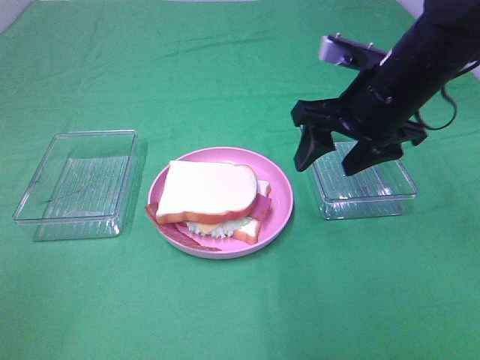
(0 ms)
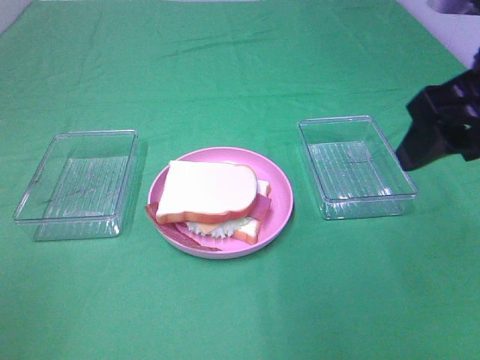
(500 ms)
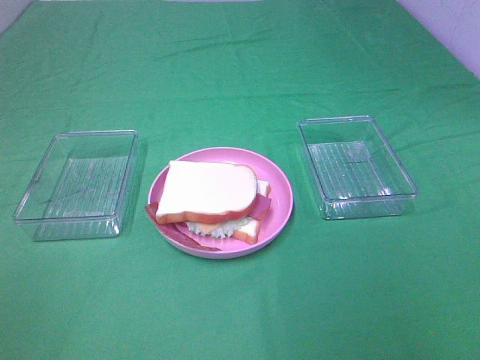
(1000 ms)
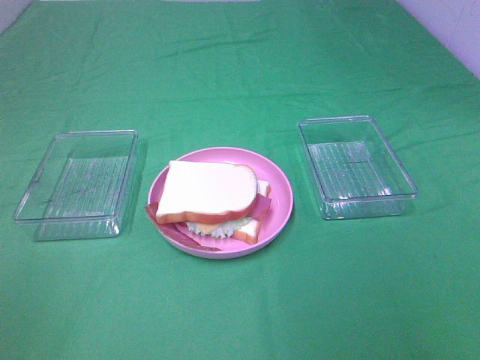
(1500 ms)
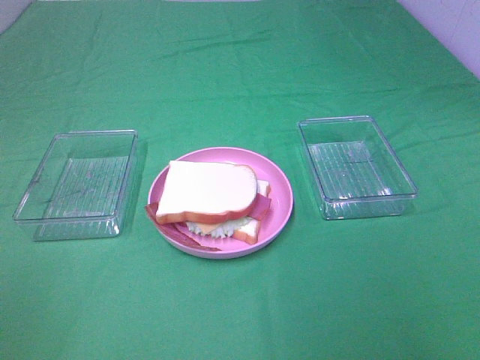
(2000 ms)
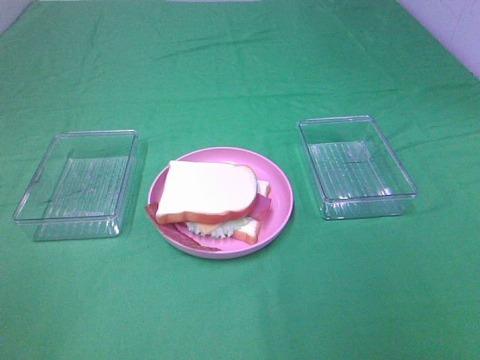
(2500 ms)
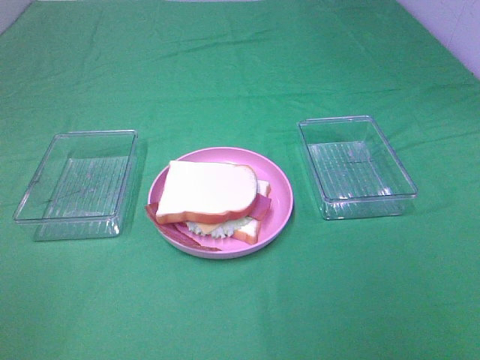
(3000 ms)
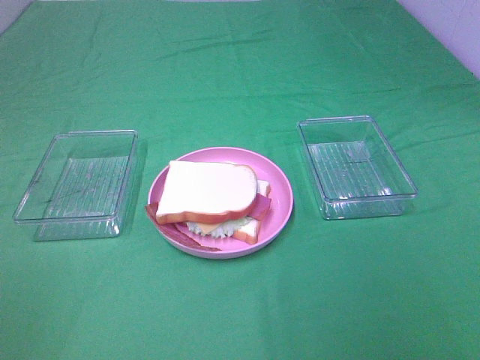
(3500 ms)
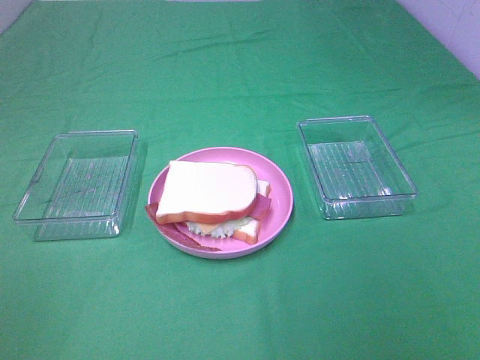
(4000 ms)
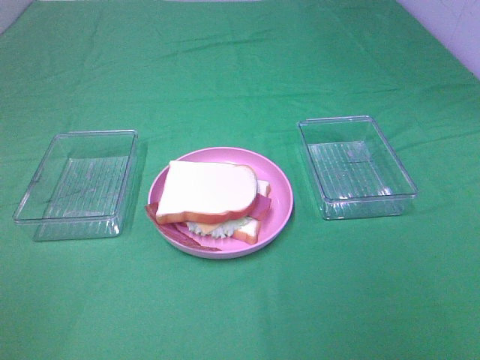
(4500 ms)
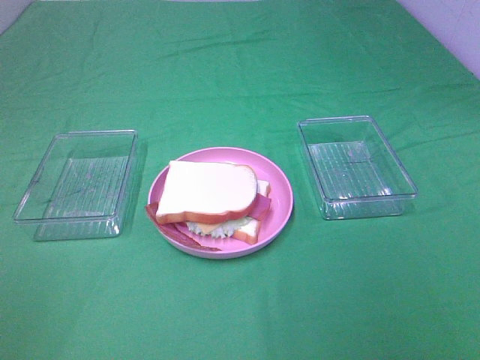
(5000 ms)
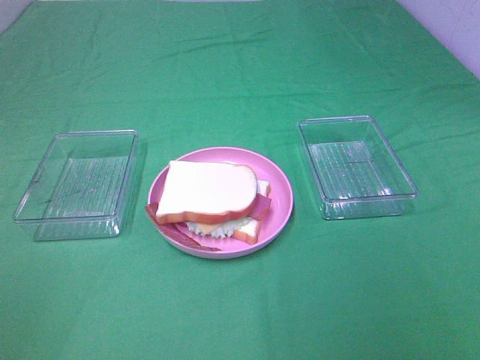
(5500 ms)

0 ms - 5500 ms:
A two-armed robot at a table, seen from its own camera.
Task of the whole recording: Make sandwiches.
0 ms - 2000 ms: The right gripper travels backward and to the right by approximately 35 cm.
3500 ms - 5500 ms: Both grippers stay about where they are.

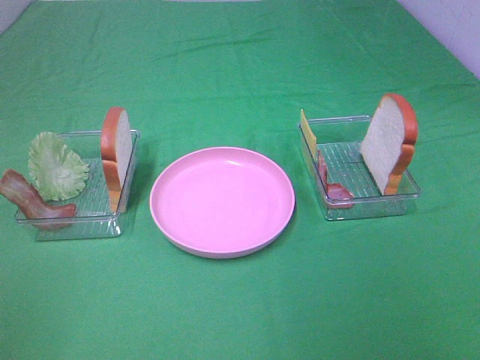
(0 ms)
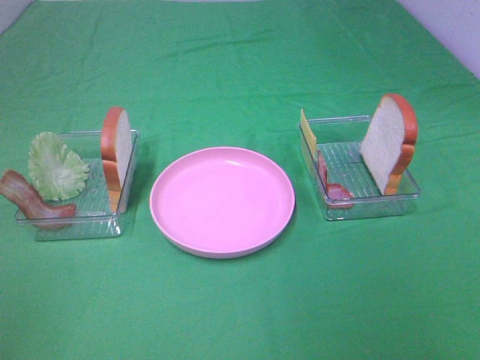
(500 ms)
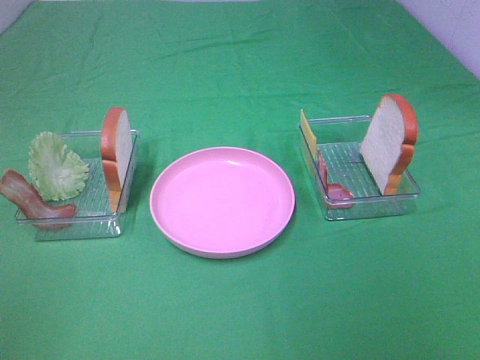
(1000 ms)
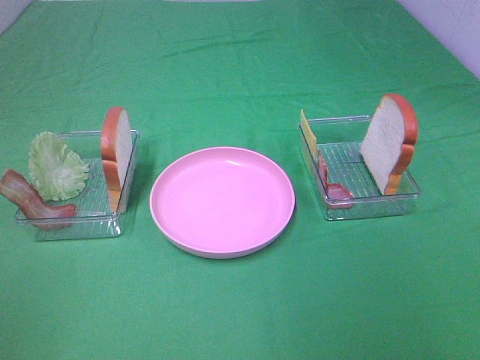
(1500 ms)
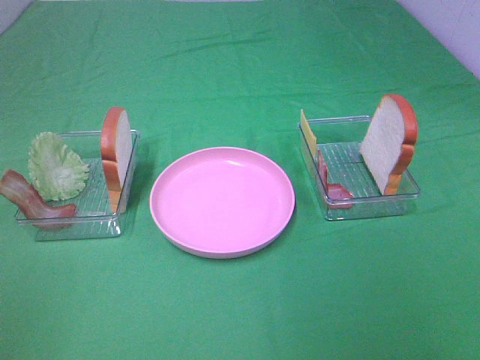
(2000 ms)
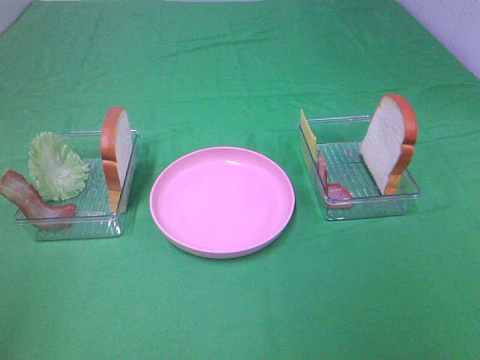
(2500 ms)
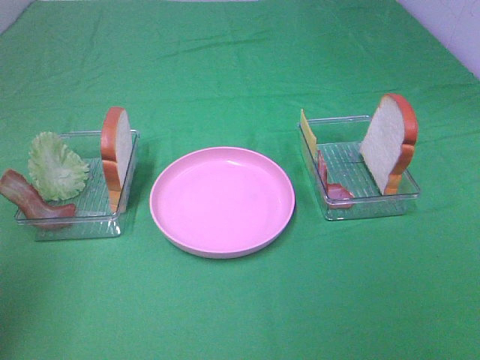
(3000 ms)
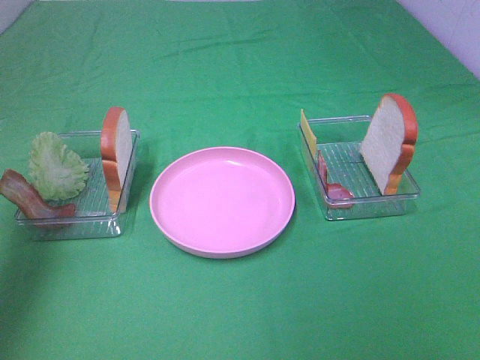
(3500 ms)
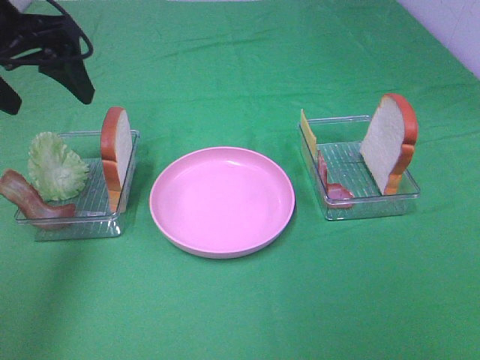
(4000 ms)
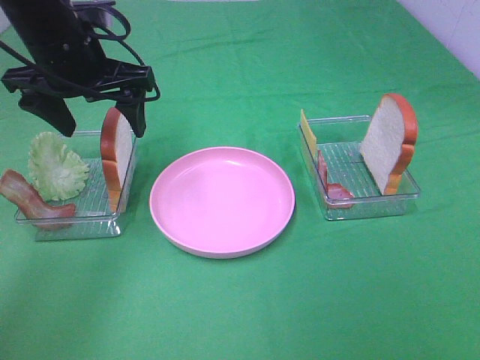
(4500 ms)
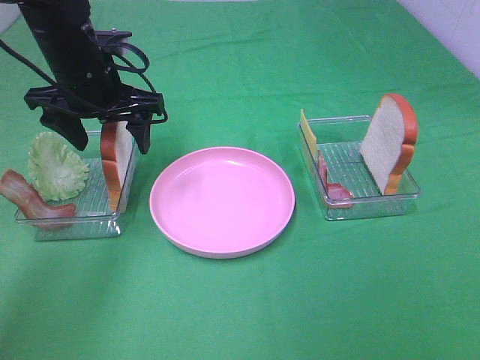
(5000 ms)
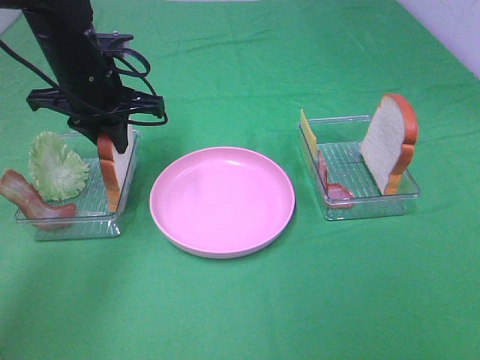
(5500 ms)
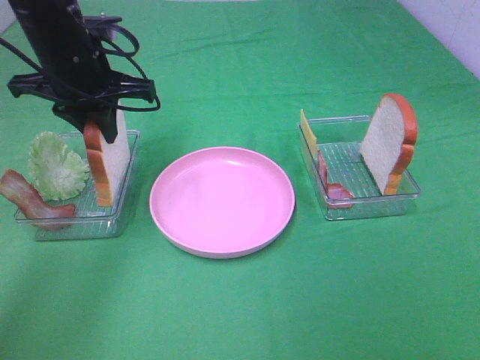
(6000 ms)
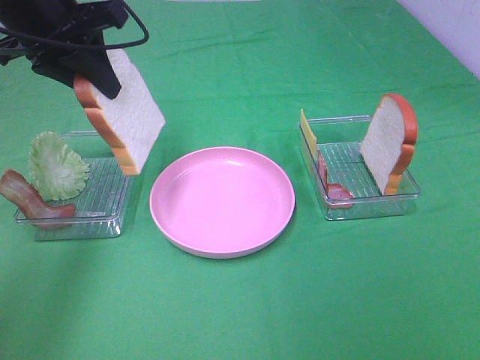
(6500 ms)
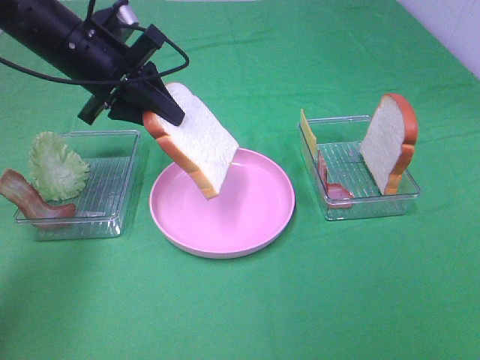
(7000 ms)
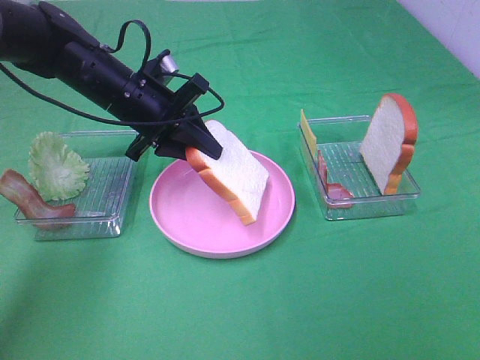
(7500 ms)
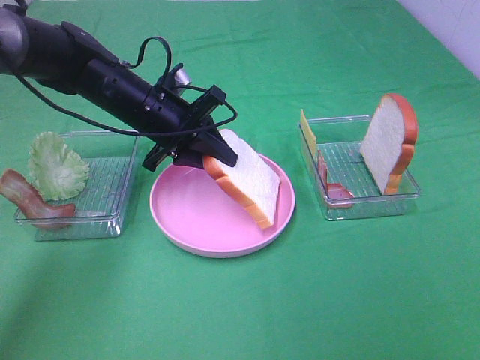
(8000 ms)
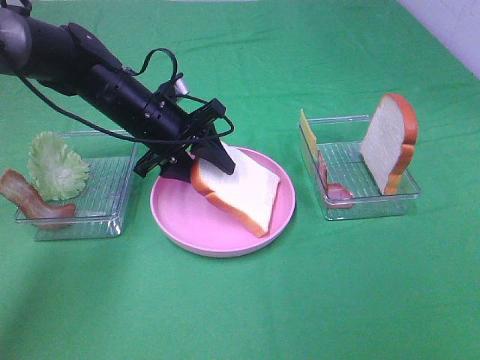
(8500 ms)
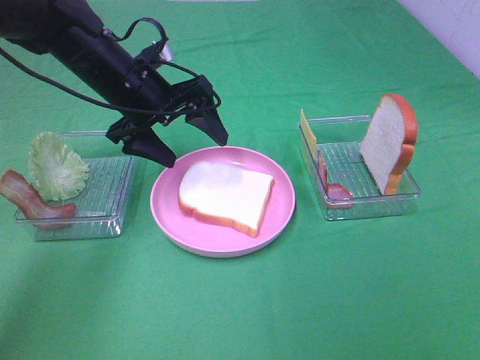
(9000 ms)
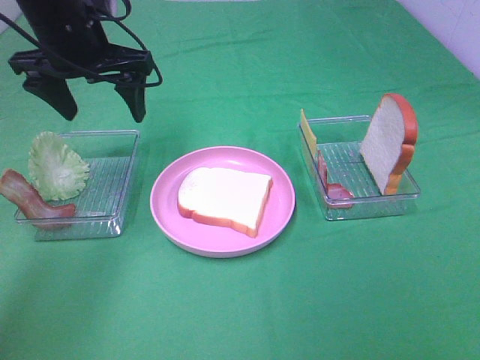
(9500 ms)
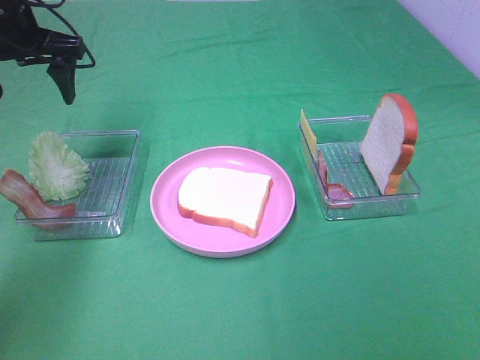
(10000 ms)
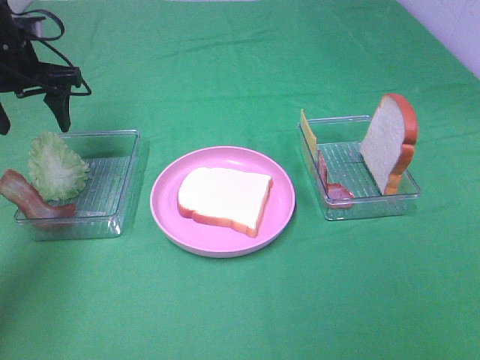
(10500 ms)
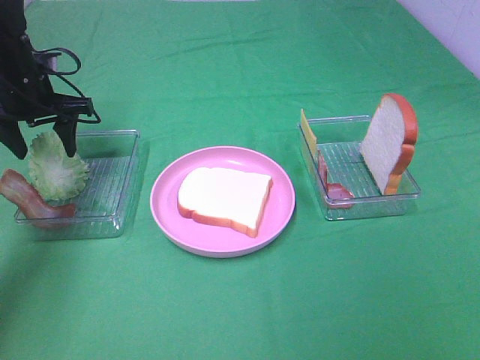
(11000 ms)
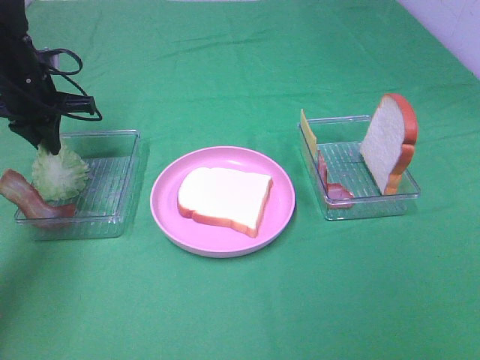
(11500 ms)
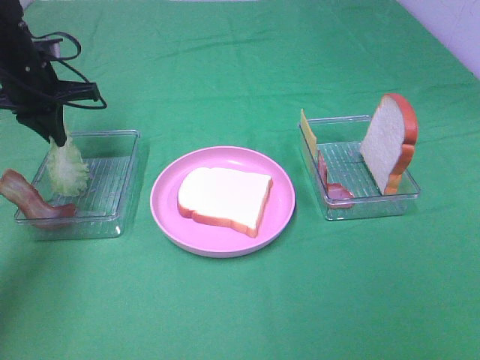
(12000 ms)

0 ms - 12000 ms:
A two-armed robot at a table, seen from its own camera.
Task of the whole recording: Make sandwiches.
Step, 0 ms - 5500 ms: Left hand:grab the bread slice.
Step, 6000 ms - 9000 ms: Left hand:place the bread slice on the plate.
Step, 9500 ms - 11500 ms: Left hand:grab the lettuce slice.
0 ms - 2000 ms: The two grippers keep their place.
2000 ms - 4000 ms: The left gripper shifts roughly 35 cm forward.
4000 ms - 6000 ms: The left gripper shifts roughly 10 cm downward and to the right, and closes.
6000 ms - 8000 ms: The left gripper travels downward and to the right by about 10 cm.
8000 ms - 10000 ms: The left gripper goes approximately 20 cm to the left and upward, and opens.
10000 ms - 12000 ms: The left gripper heads downward, covering some 10 cm, and closes its fingers.

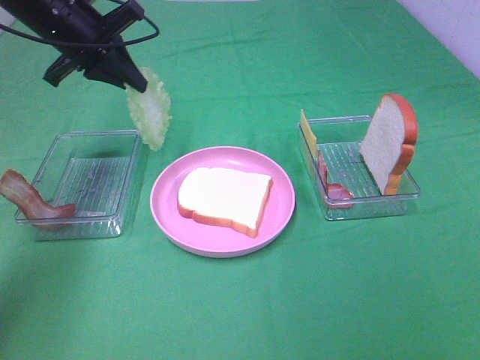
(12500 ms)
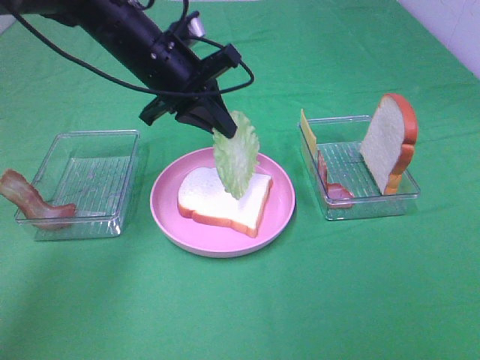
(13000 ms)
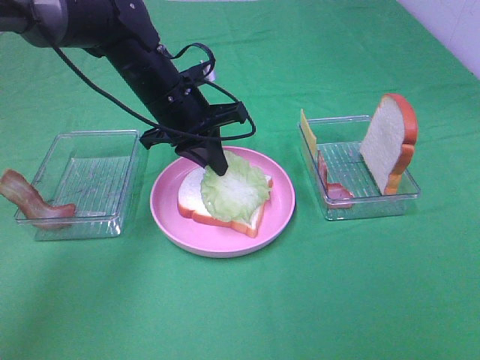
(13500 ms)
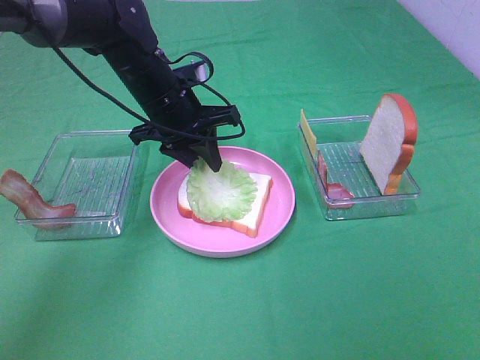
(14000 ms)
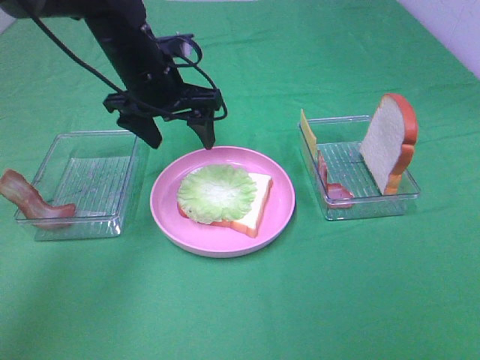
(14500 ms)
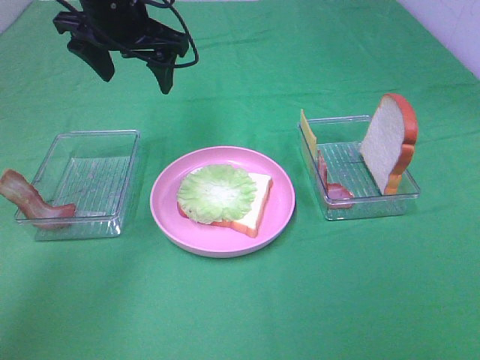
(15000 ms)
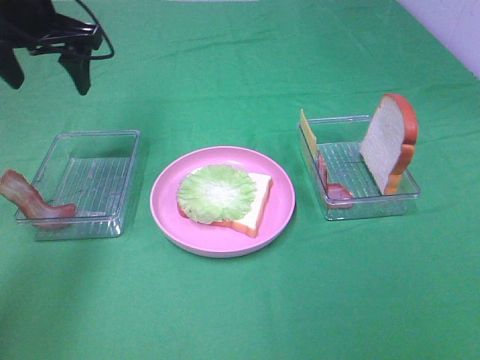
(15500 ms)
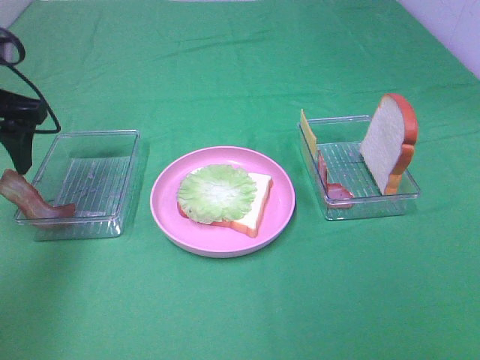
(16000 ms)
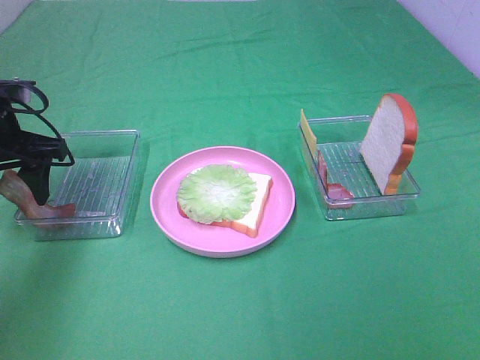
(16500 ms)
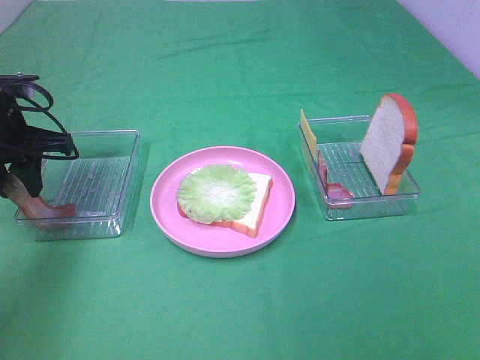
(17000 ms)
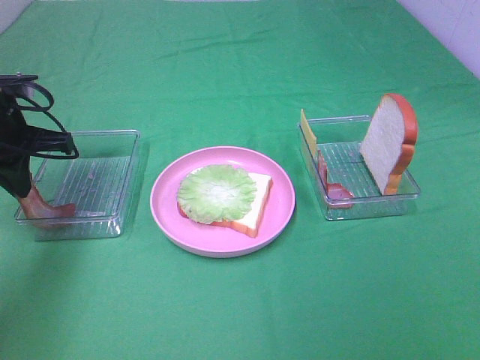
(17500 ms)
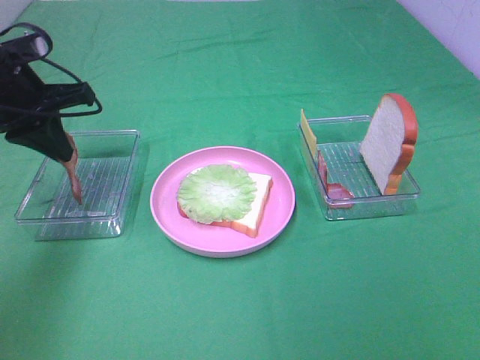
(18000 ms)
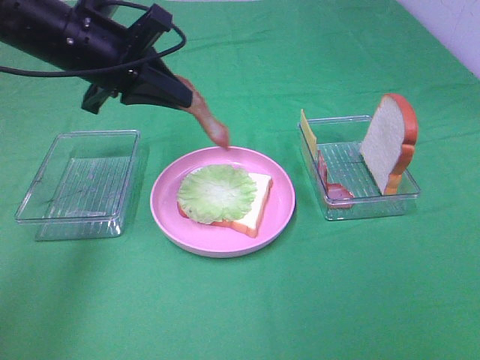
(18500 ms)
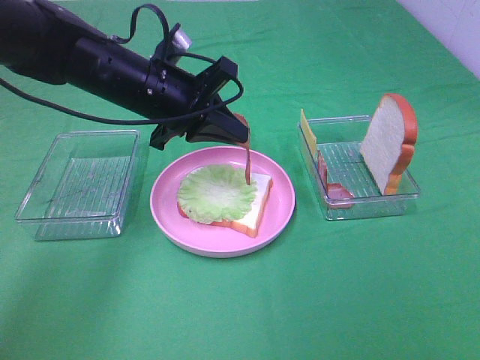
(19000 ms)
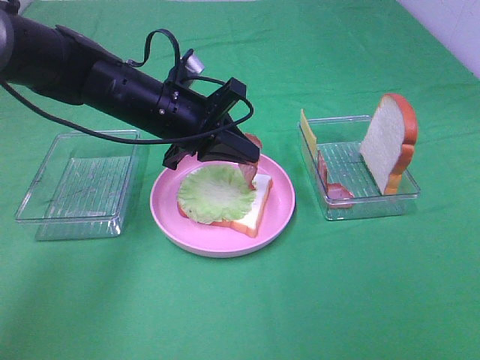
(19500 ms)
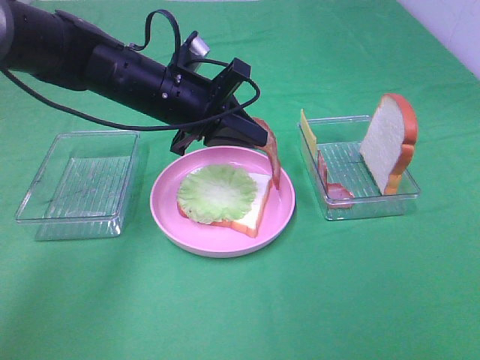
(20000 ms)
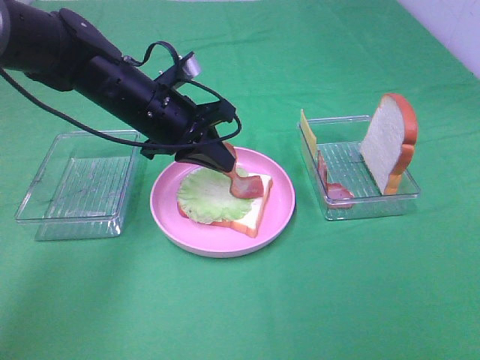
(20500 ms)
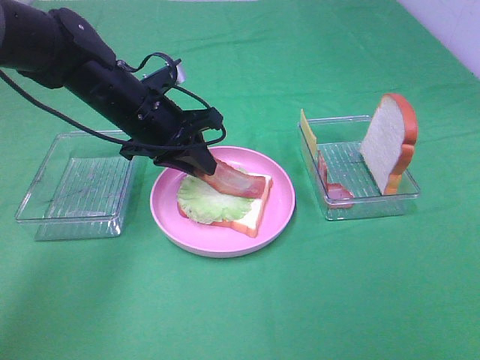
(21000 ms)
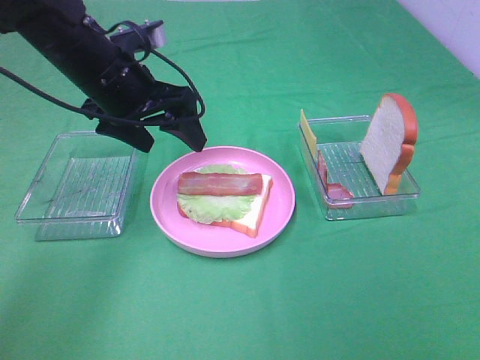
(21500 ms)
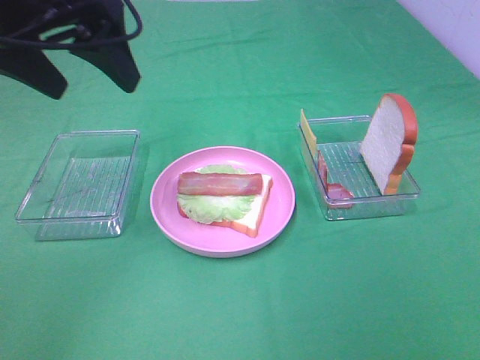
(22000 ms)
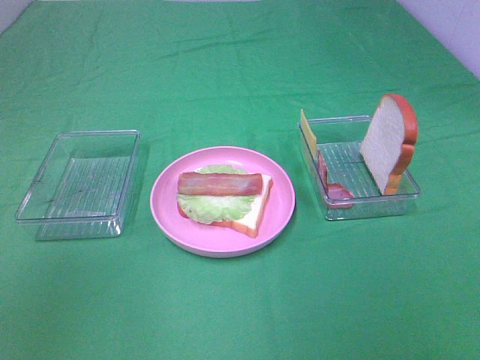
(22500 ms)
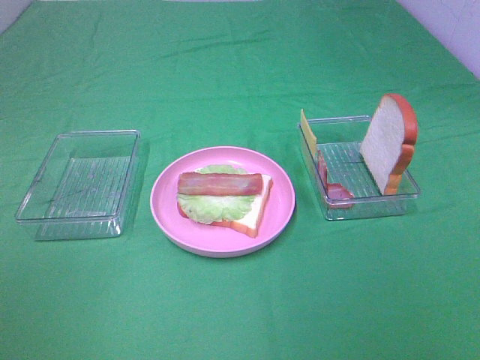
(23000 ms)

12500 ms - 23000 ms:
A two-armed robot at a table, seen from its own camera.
Task of the whole recording: Make sandwiches.
Step, 12500 ms - 14500 ms: Left hand:place the lettuce slice on the bread slice.
Step, 15000 ms - 17500 ms: Left hand:grab the bacon.
Step, 18000 ms - 21500 ms: Left hand:place bacon on lettuce slice.
12500 ms - 14500 ms: The left gripper heads to the right, covering some 10 cm, and opens its fingers.
14500 ms - 16500 ms: The left gripper shifts roughly 20 cm to the left and backward.
16500 ms - 19000 ms: The left gripper is displaced to the right by approximately 15 cm, and closes its fingers.
19000 ms - 21000 ms: There are only small adjustments of the grippers.
21000 ms - 23000 ms: The left gripper moves backward, upward and to the left, some 40 cm, and opens up.
